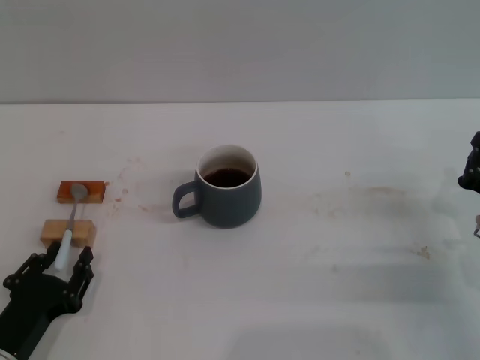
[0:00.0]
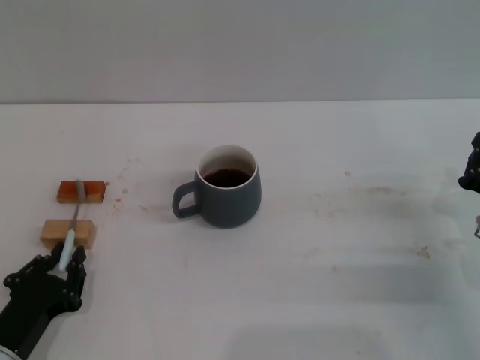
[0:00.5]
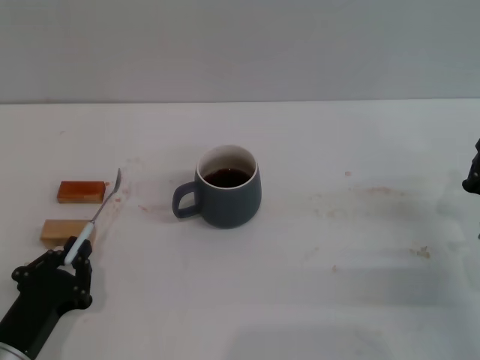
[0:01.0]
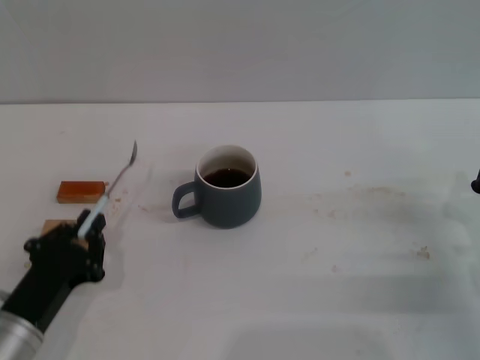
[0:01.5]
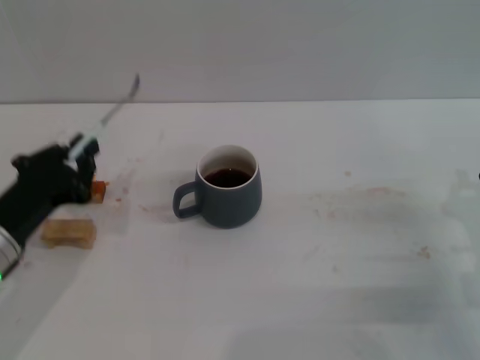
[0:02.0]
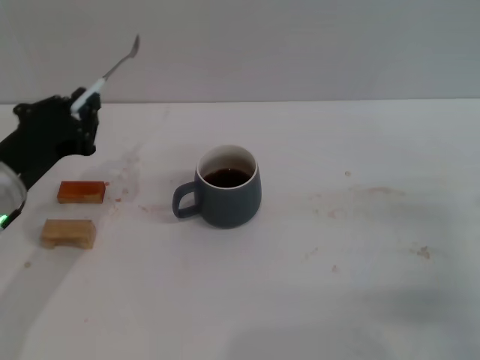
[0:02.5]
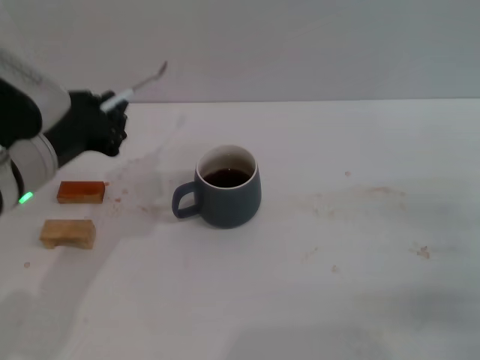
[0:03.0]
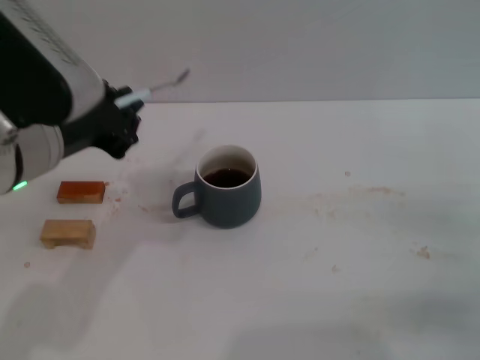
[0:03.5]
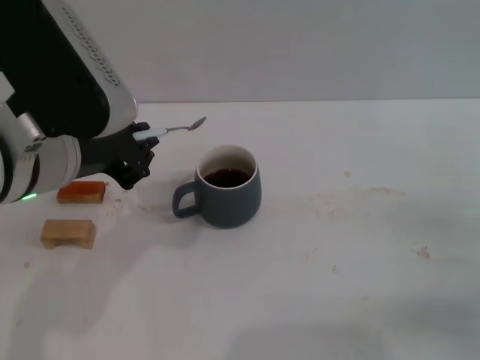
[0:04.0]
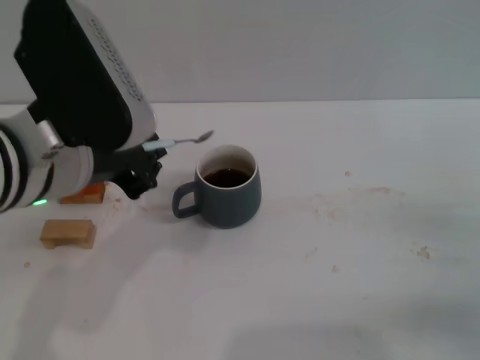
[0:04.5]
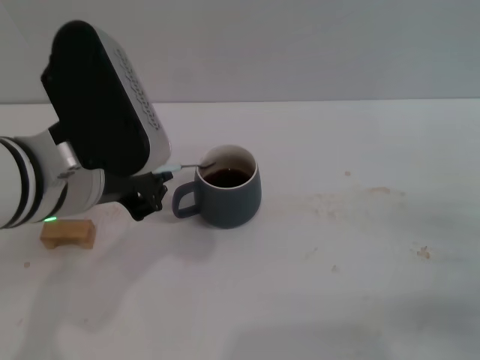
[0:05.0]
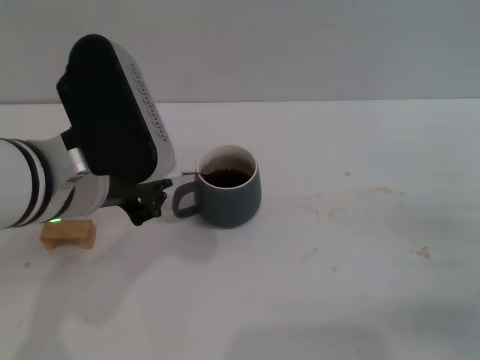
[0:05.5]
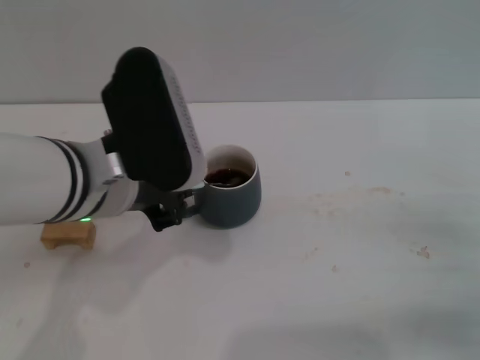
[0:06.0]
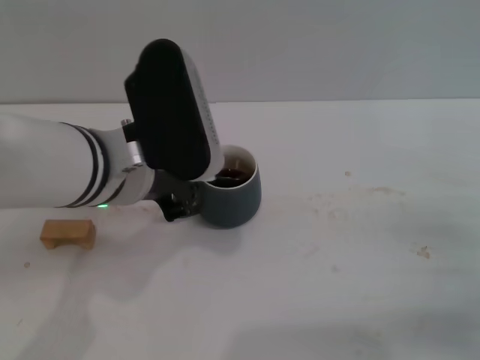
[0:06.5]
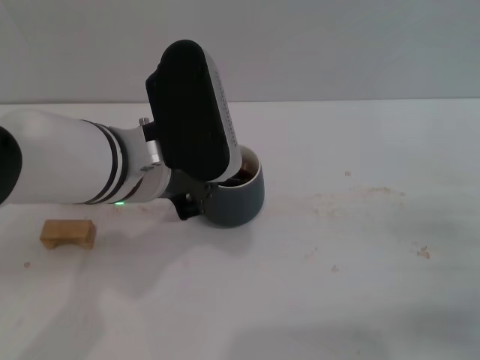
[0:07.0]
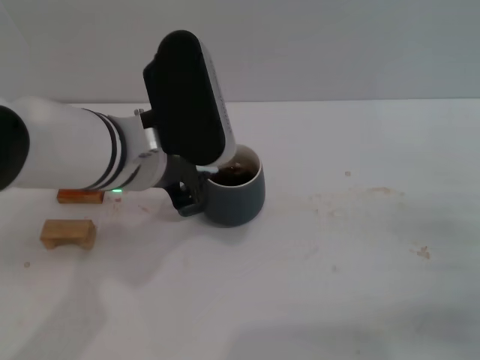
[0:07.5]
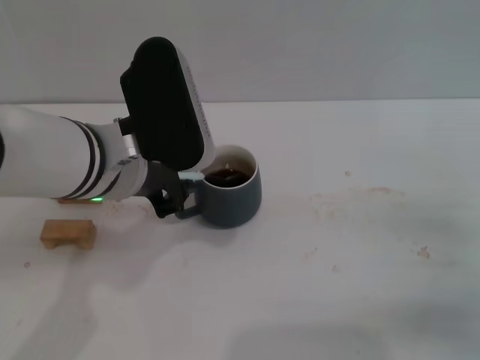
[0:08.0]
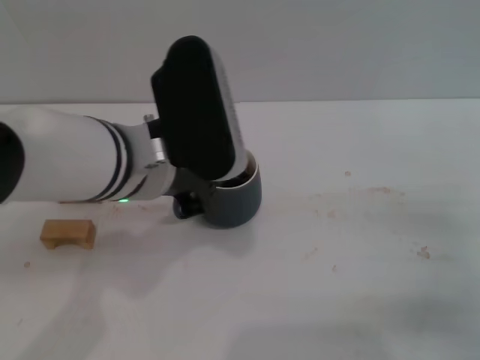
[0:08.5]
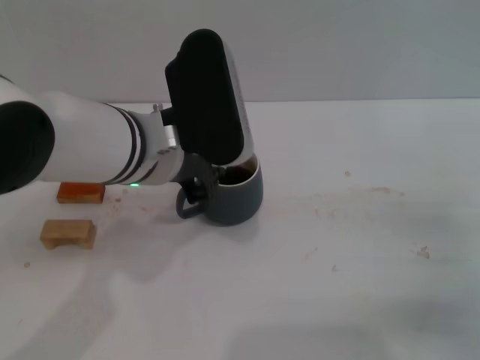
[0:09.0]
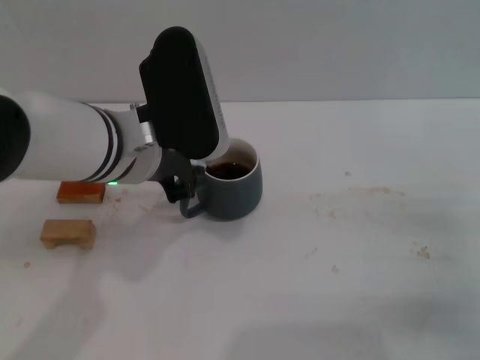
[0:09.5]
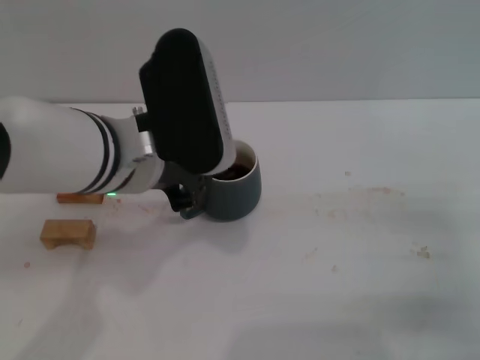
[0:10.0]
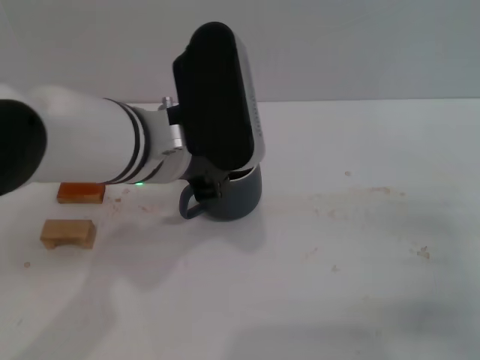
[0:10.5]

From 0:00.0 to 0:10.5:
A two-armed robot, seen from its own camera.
Task of the whole recording: Move the grey cup to the center, lift the blue spoon, stir it three times in the cup, and put the spoon into the cup.
From 0:00.0 to 0:02.0: The left gripper moves upward and forward, some 10 cm, and closes up.
From 0:02.0 to 0:04.0: The left gripper is displaced upward and to the right by about 15 cm.
From 0:04.0 to 0:06.5: The left gripper moves roughly 5 cm.
From 0:06.5 to 0:10.5: There are only small adjustments of the grippers.

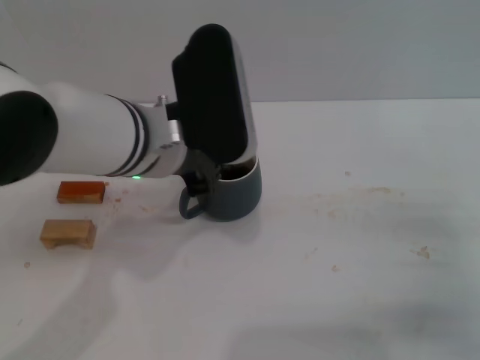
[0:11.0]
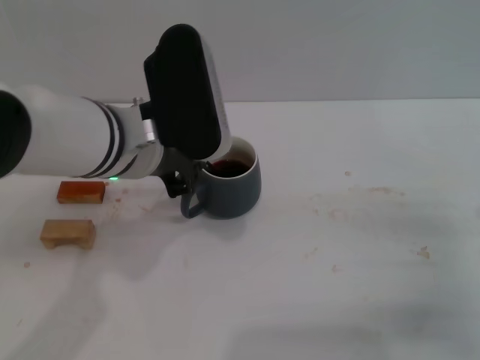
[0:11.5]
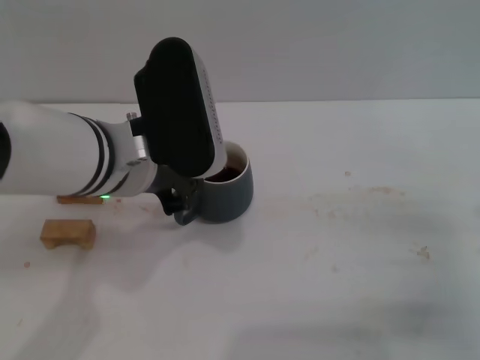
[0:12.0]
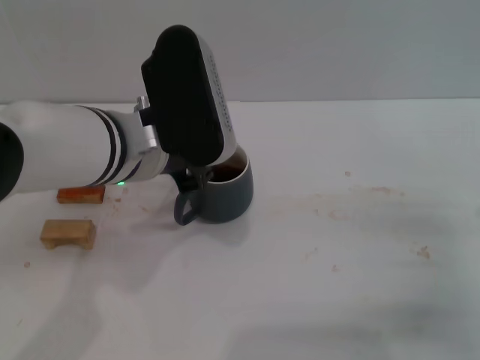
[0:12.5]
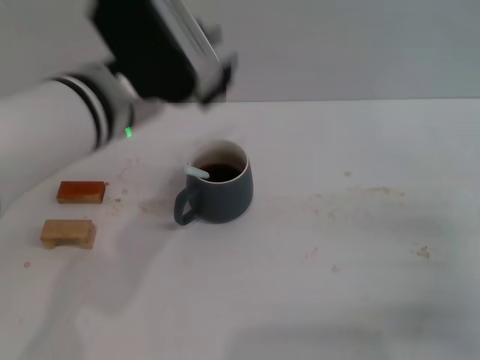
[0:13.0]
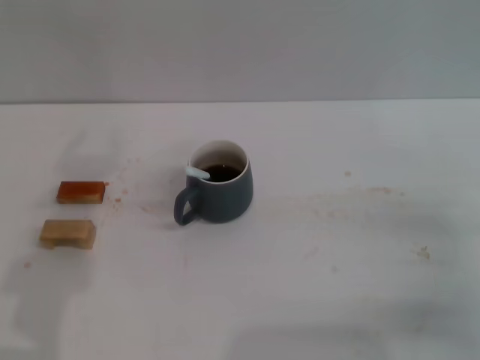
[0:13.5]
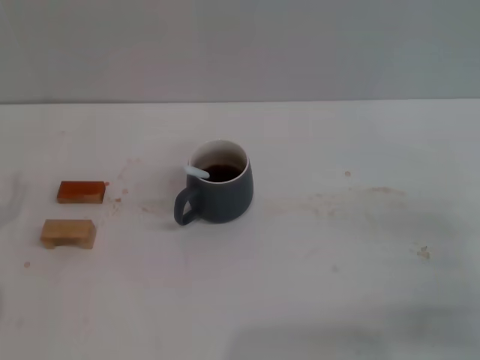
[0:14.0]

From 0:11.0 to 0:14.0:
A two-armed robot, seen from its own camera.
Task of the whole recording: Move the grey cup to the center, lift the blue spoon, stir it three times in the cup, and put the spoon into the cup.
From 0:11.0 to 0:12.5: The grippers stay close to where they were, moving slightly.
From 0:12.5 to 0:14.0: The left gripper heads to the left, downward and backward, covering about 25 cm, and opens.
